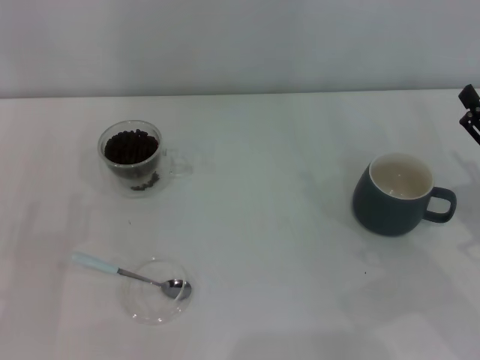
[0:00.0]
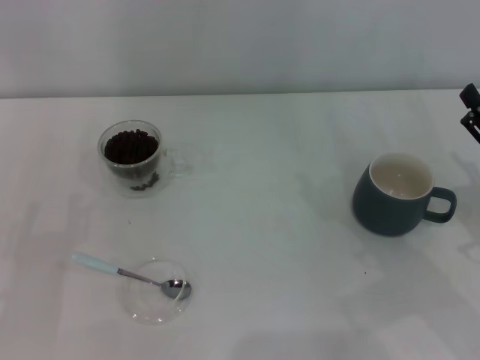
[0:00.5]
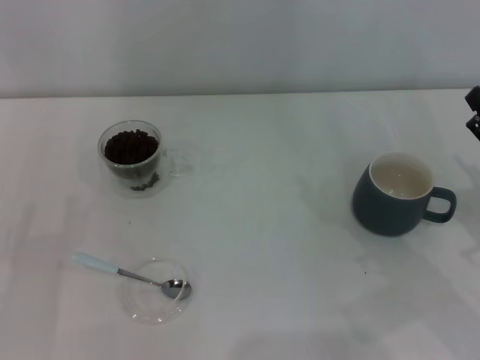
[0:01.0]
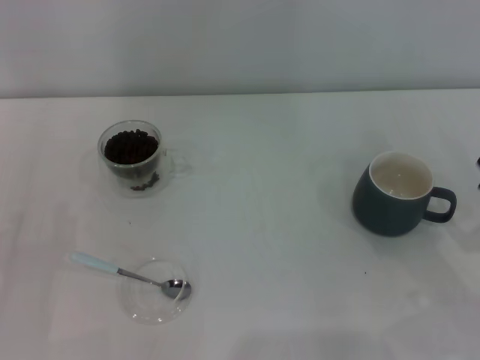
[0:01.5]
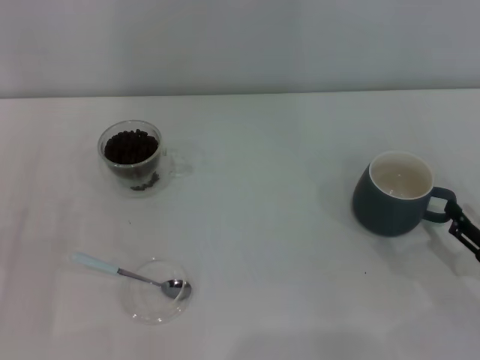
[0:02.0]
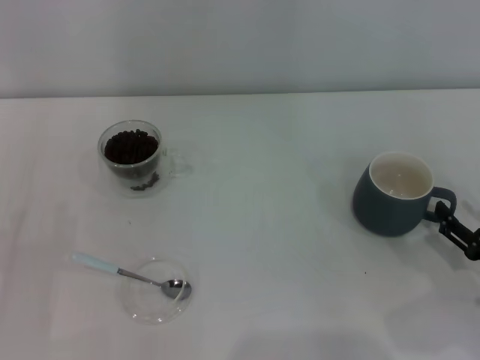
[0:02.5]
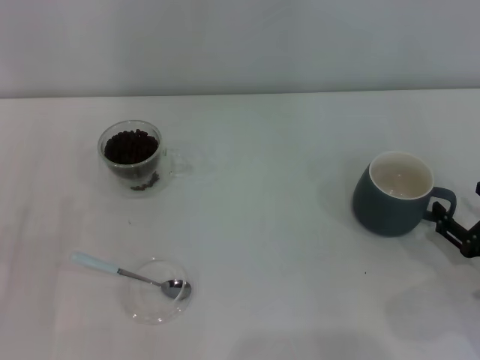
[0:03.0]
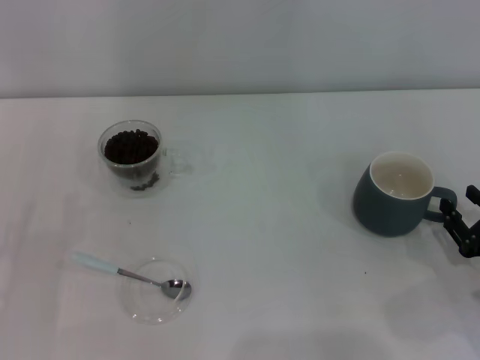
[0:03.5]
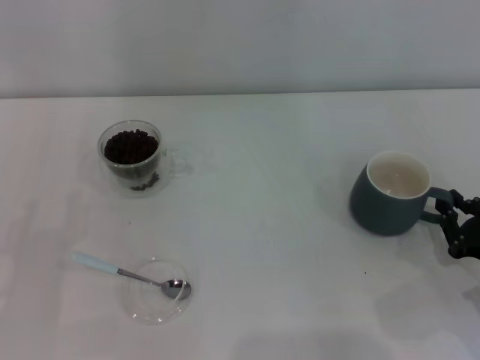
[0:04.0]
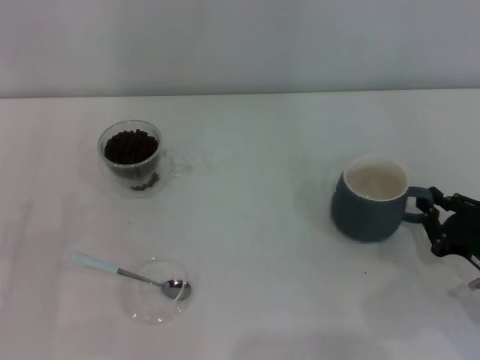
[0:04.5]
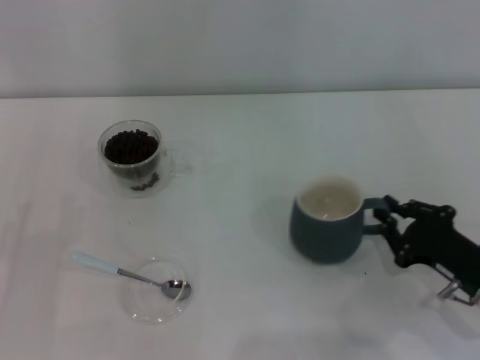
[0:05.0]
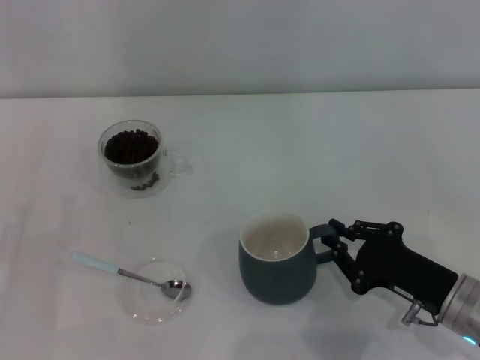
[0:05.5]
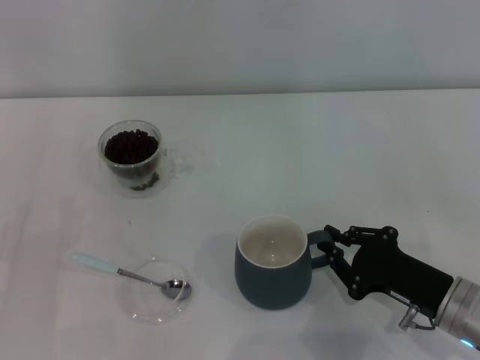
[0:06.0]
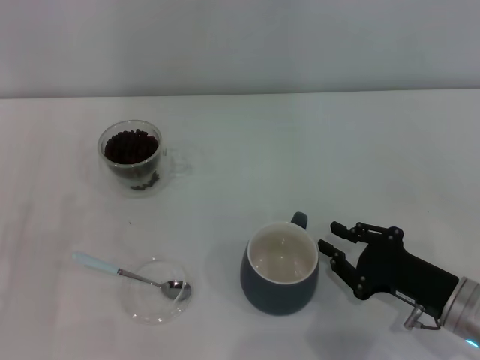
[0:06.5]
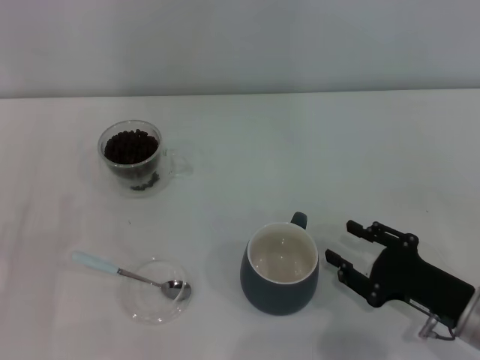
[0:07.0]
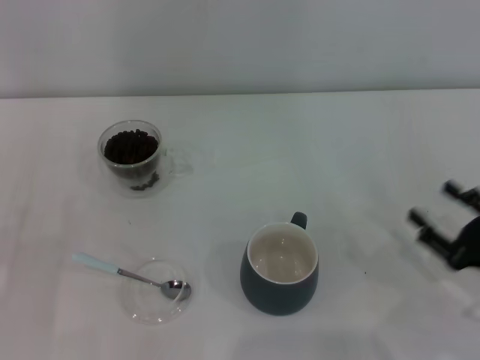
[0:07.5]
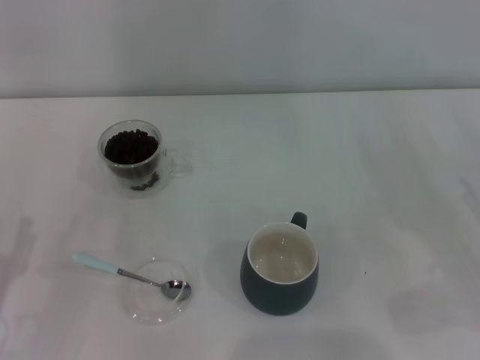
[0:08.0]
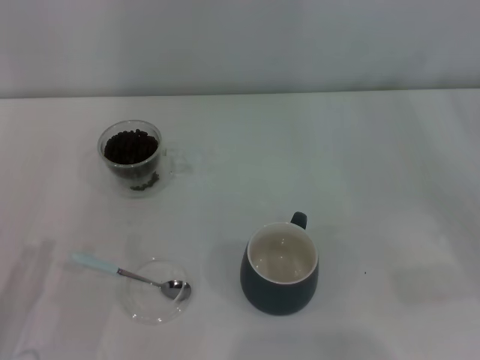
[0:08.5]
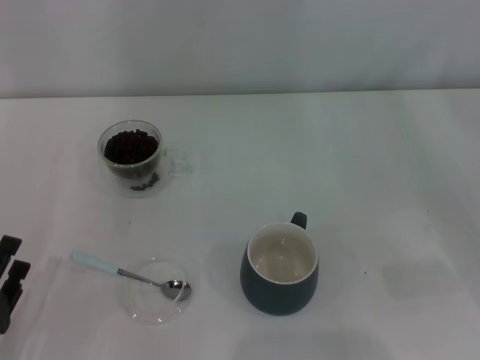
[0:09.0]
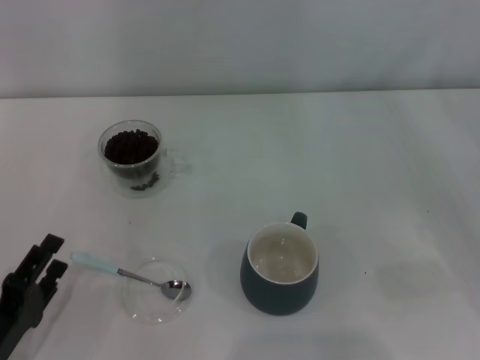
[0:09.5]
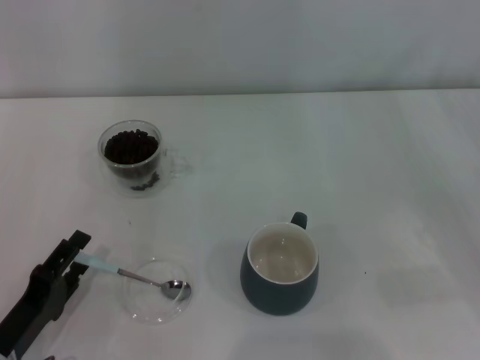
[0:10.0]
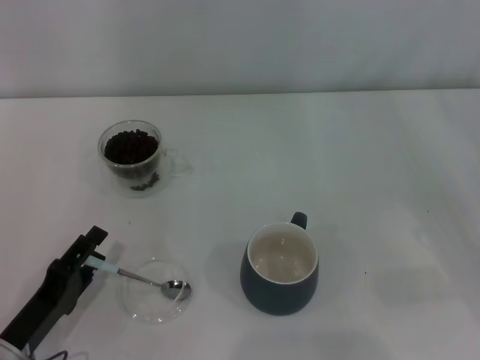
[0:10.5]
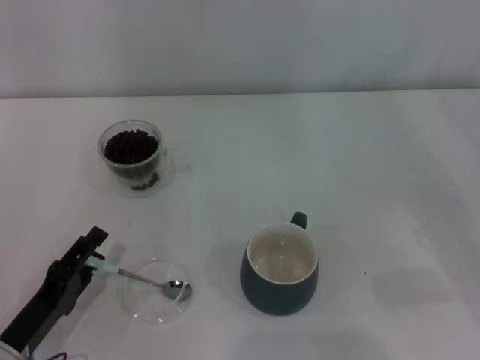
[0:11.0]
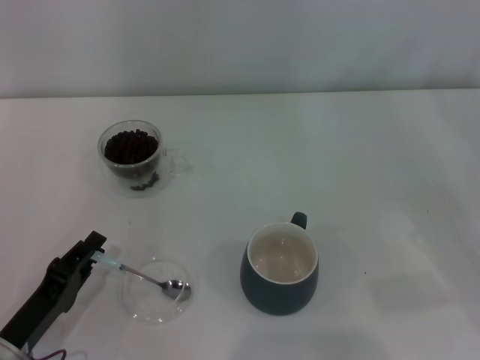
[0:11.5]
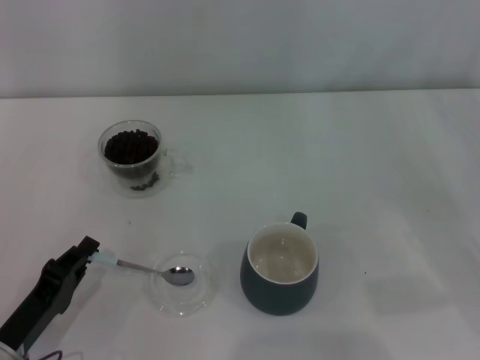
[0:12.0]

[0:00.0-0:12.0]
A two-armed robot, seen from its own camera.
Task of the whole recording: Use a blue spoon to take out the coffee beans from the glass and pour them into the gray cup.
Step, 0:00.0 to 0:07.0: Move the cup to the center of view with the left gripper.
0:00.0 to 0:02.0: The right gripper moves backward and downward, about 10 cm.
0:02.0 to 0:04.0: The right gripper closes its fingers.
0:04.0 to 0:06.0: The right gripper goes approximately 10 cm to the left.
0:06.0 to 0:08.0: The right gripper moves to the right, roughly 10 cm, and opens.
0:08.0 to 0:10.0: The left gripper moves some 5 cm.
0:10.0 to 0:12.0: The left gripper closes its fingers.

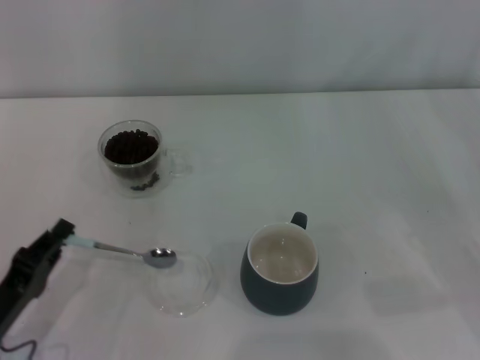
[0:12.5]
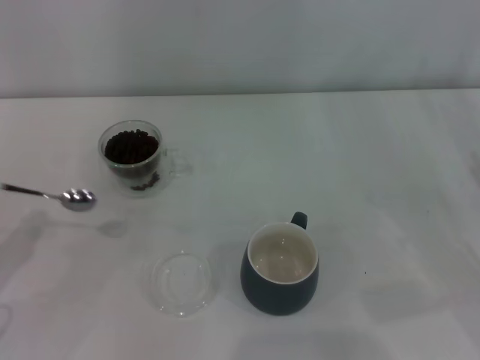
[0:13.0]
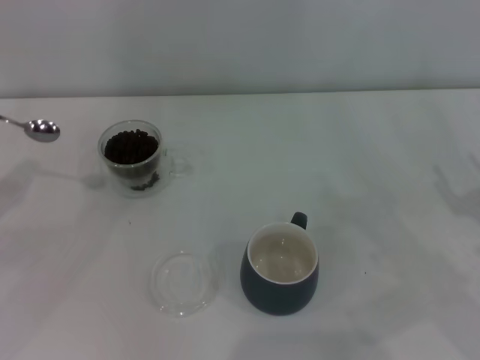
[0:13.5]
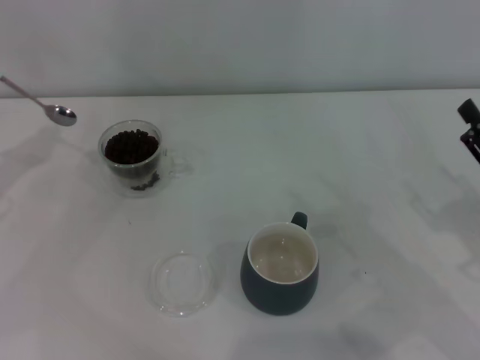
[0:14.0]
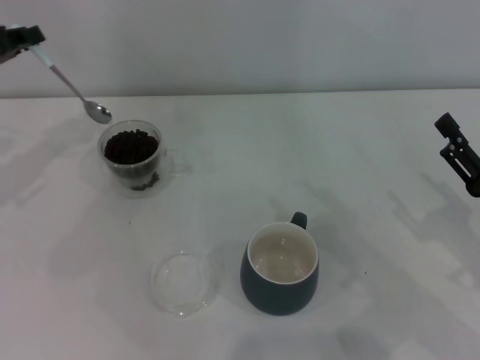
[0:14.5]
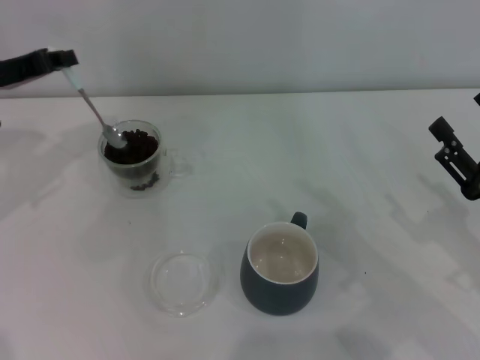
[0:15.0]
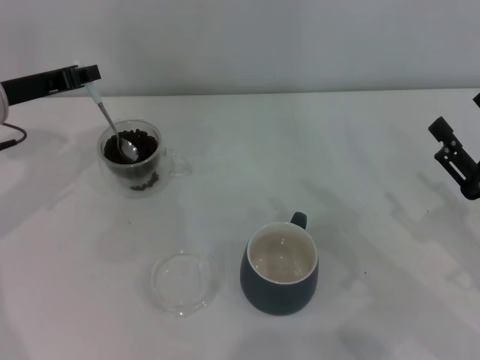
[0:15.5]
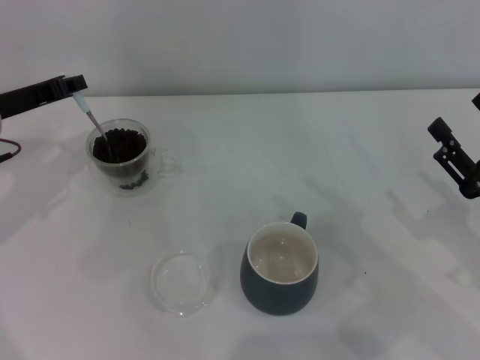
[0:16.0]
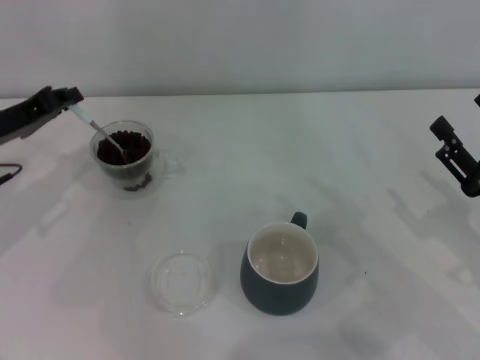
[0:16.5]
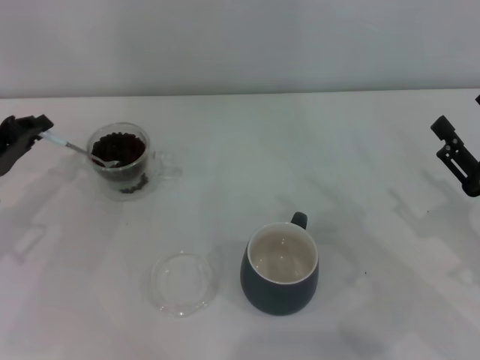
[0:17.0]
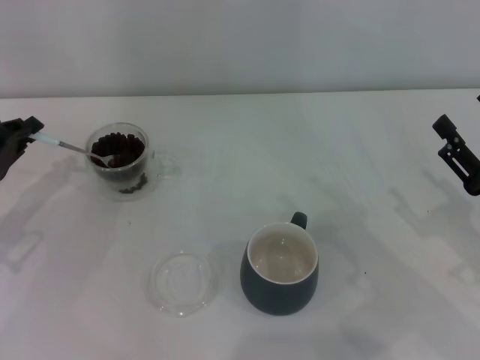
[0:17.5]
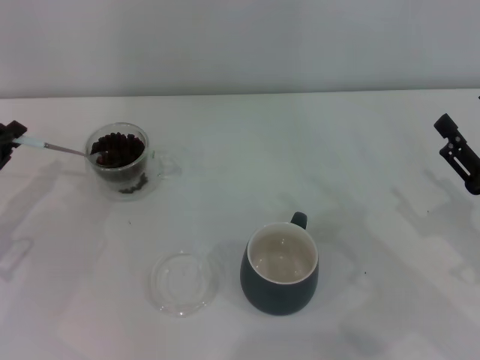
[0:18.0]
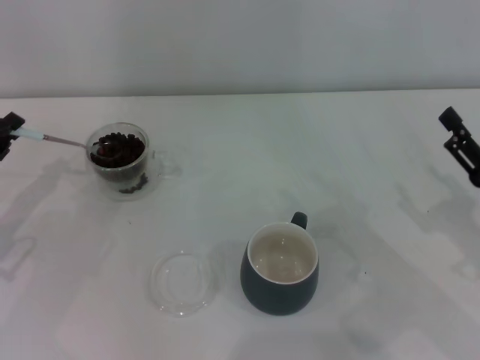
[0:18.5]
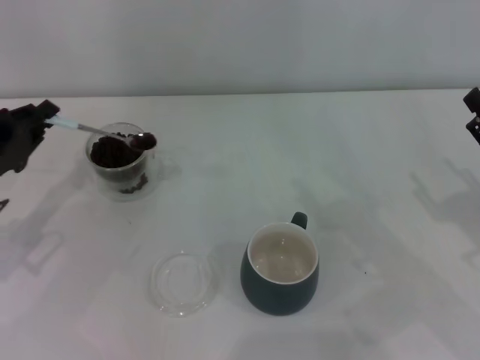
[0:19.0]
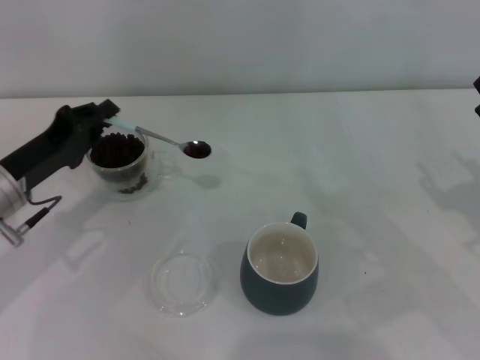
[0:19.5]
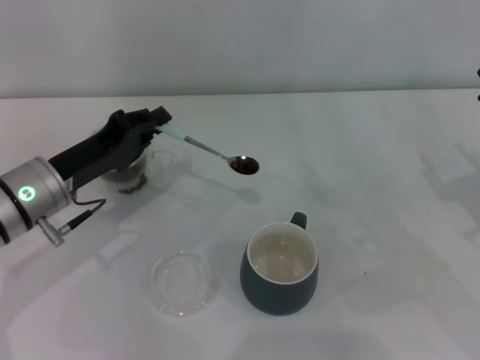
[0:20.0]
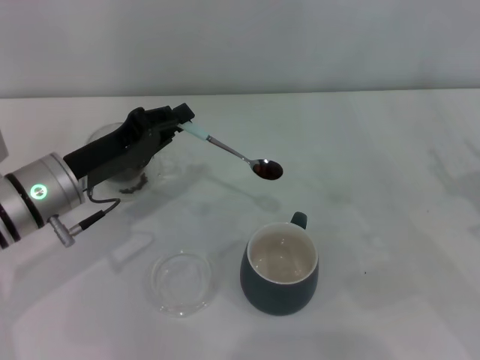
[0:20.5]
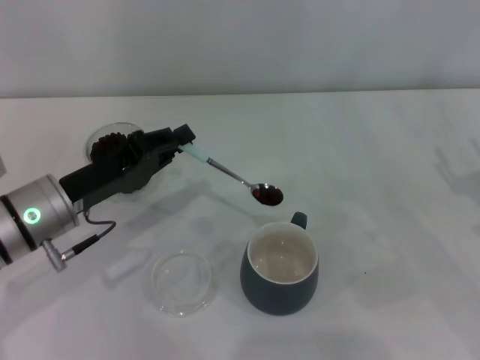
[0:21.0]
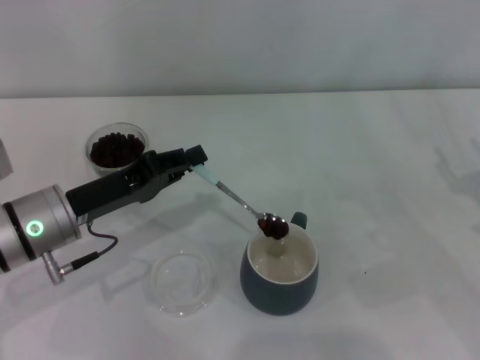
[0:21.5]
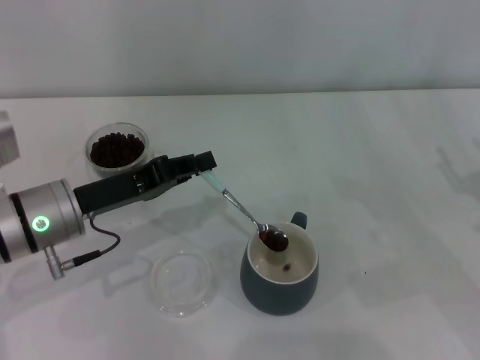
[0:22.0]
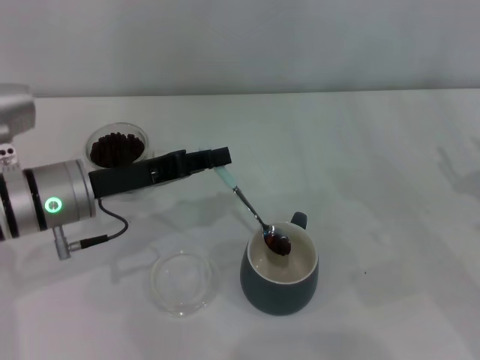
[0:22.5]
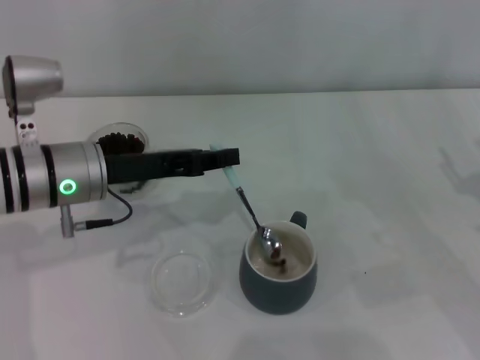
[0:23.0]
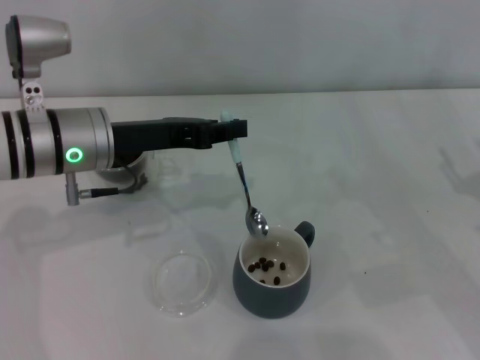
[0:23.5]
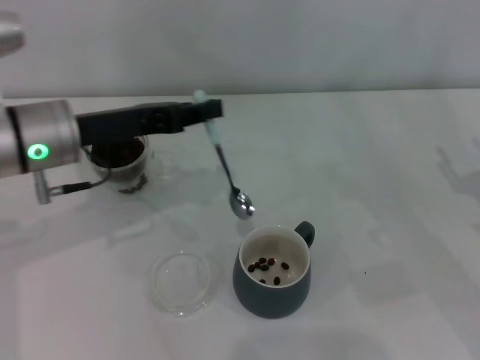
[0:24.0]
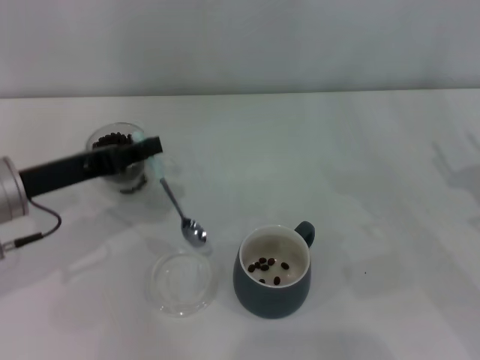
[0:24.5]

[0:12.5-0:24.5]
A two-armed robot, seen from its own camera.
Task of the whole recording: Use a blue spoon to take out the coffee beans from the glass and pour them into the gray cup.
Step, 0:13.0 to 0:23.5: Scoop a spoonful of beans into the cup with the right gripper.
0:12.5 to 0:14.5: The right gripper travels to the left by roughly 5 cm, while the left gripper moves forward and upward, approximately 30 cm.
0:14.5 to 0:16.5: The left gripper travels downward by roughly 5 cm.
0:16.5 to 0:18.5: The left gripper goes approximately 5 cm backward.
0:18.5 to 0:20.5: The left gripper shifts roughly 15 cm to the right.
0:22.5 to 0:24.5: The left gripper moves to the left, approximately 5 cm.

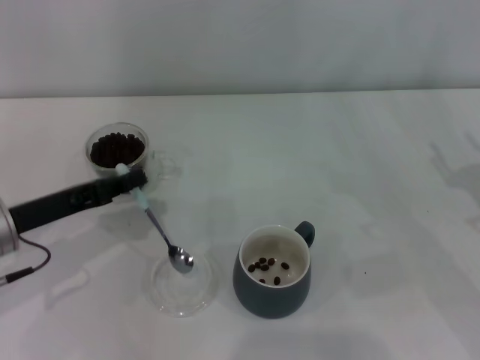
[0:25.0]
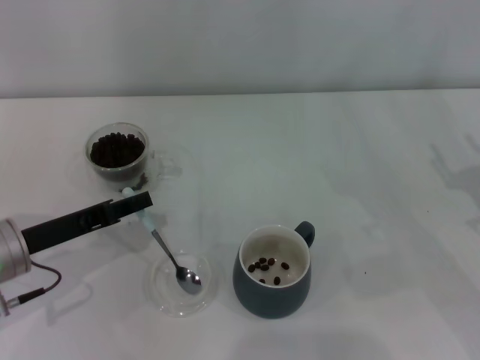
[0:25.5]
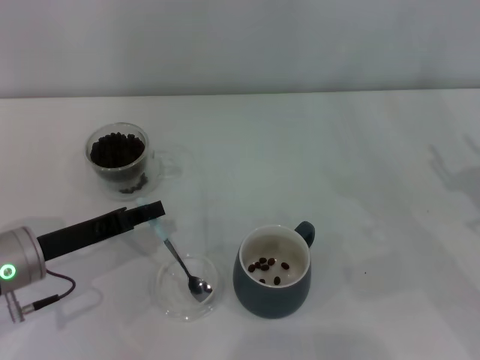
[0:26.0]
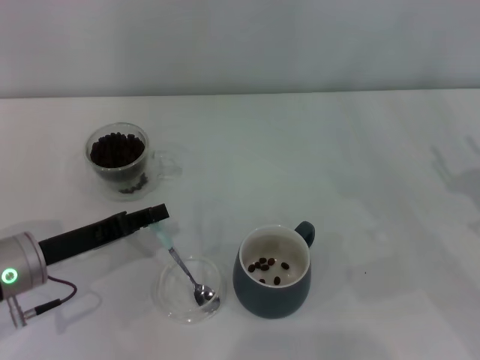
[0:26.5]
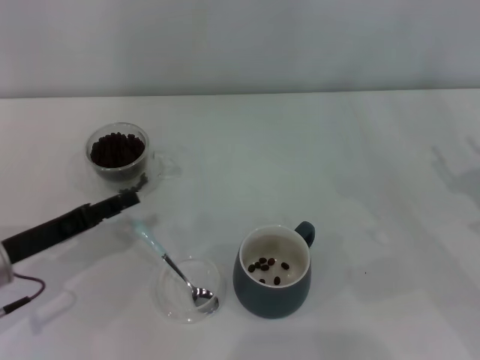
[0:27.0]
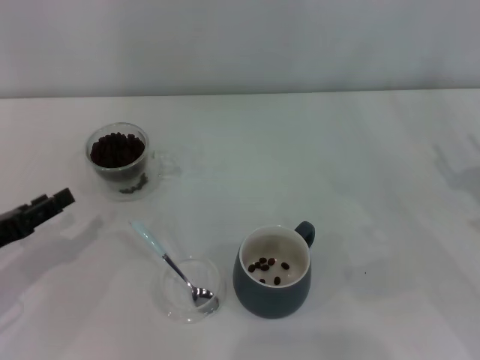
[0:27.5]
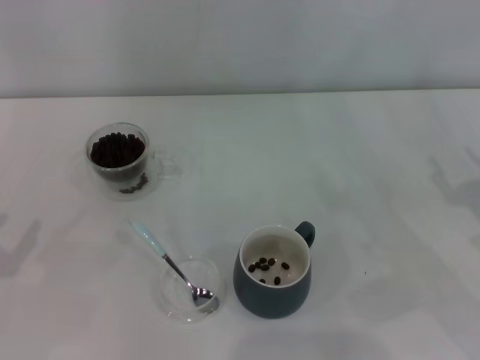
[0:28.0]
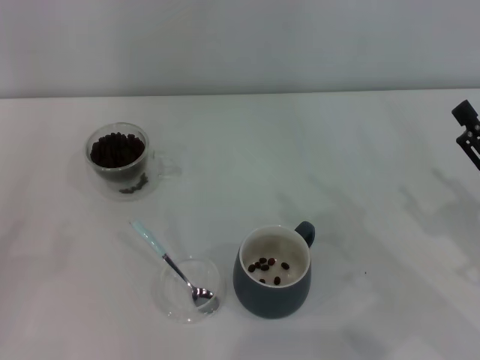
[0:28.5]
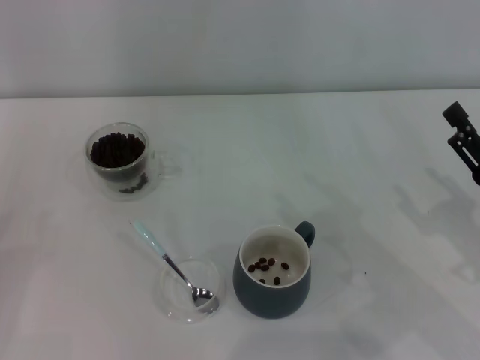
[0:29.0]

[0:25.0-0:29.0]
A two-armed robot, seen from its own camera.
Task of the whole recording: Use a blue spoon to take out the coffee beans from the glass and pour them into the gray cup.
0:25.0 to 0:27.0: The left gripper opens.
0:27.0 to 0:29.0: The left gripper heads to the left and backward, covering roughly 15 cm.
